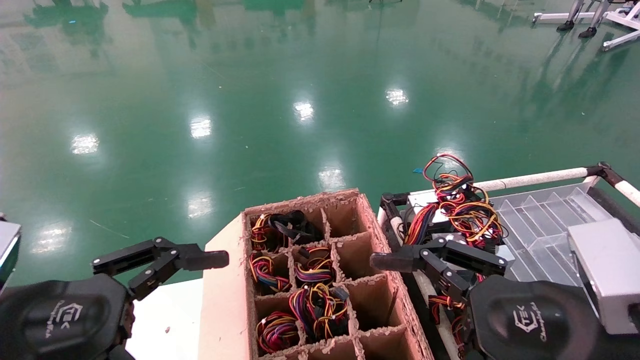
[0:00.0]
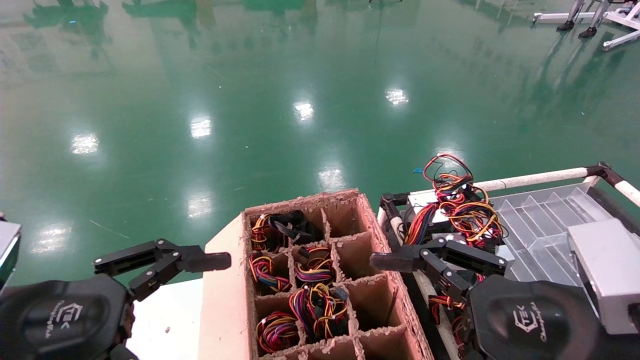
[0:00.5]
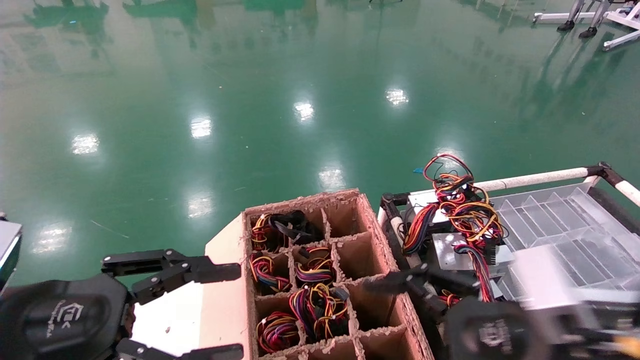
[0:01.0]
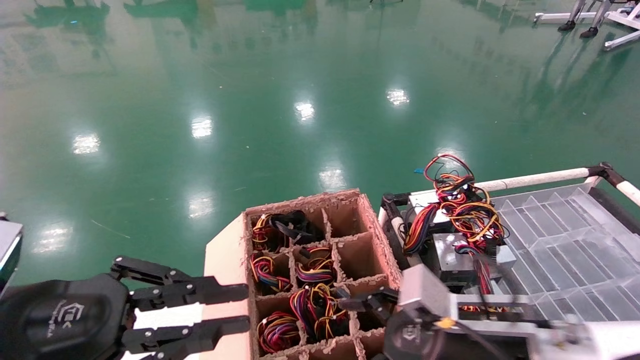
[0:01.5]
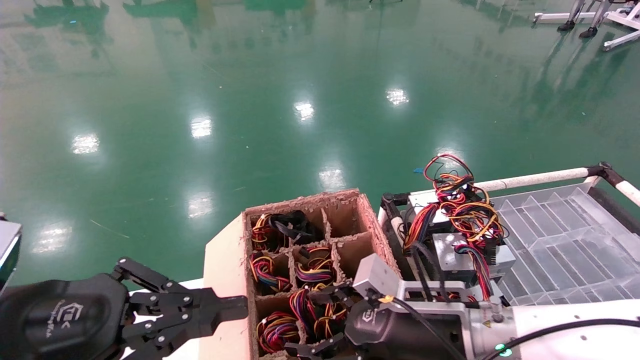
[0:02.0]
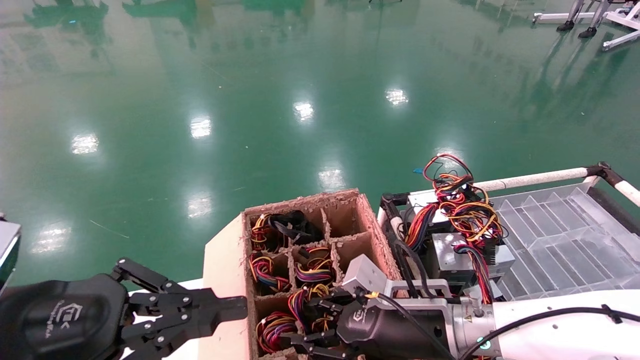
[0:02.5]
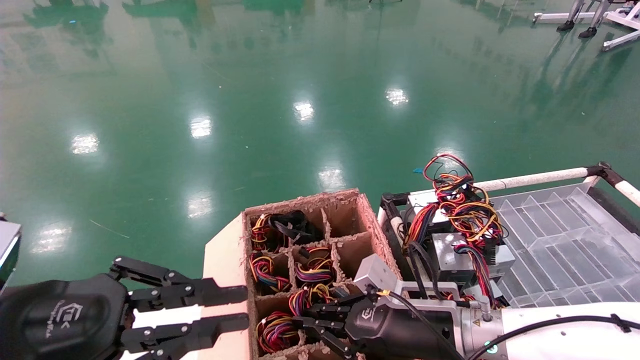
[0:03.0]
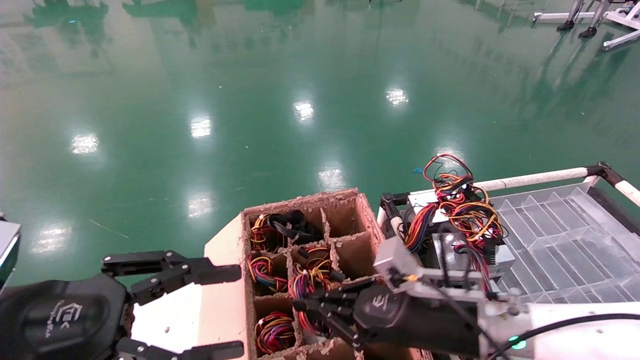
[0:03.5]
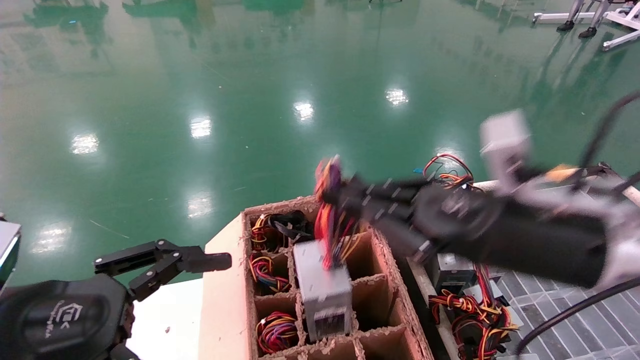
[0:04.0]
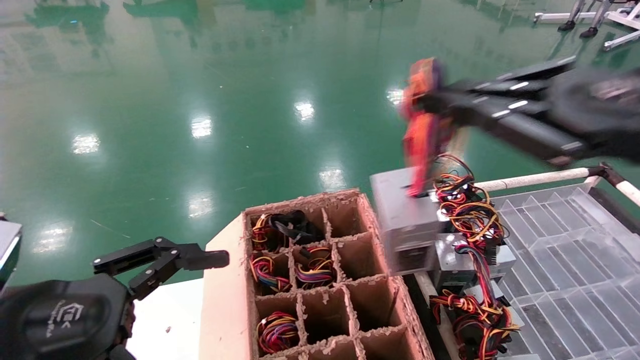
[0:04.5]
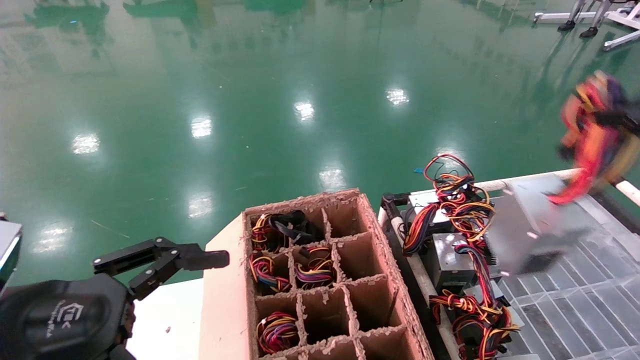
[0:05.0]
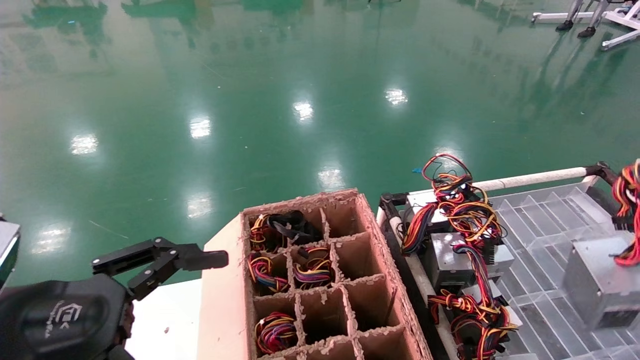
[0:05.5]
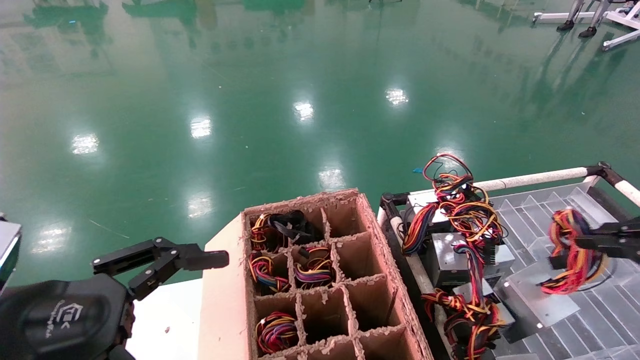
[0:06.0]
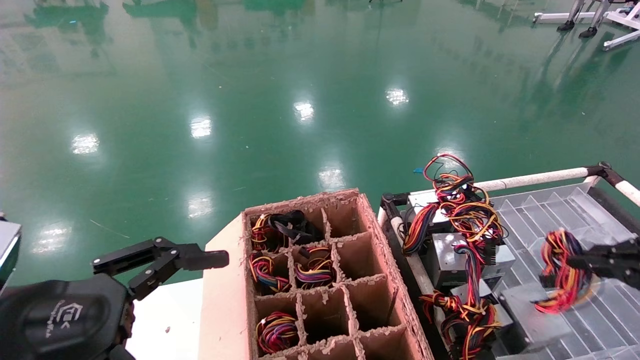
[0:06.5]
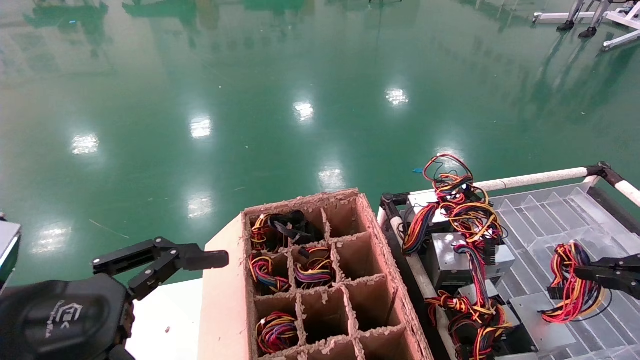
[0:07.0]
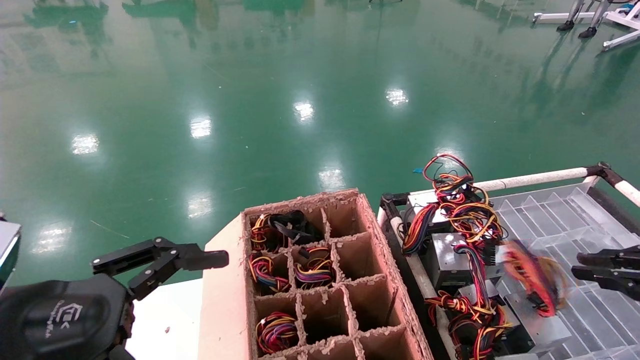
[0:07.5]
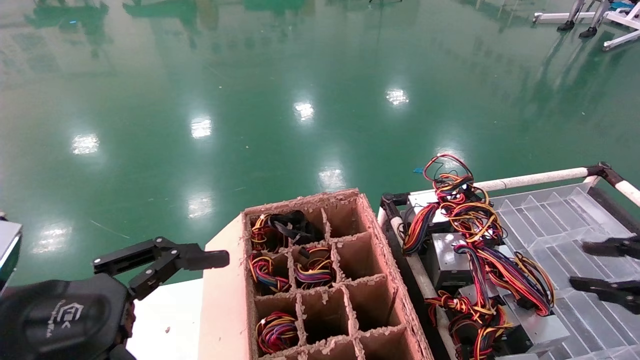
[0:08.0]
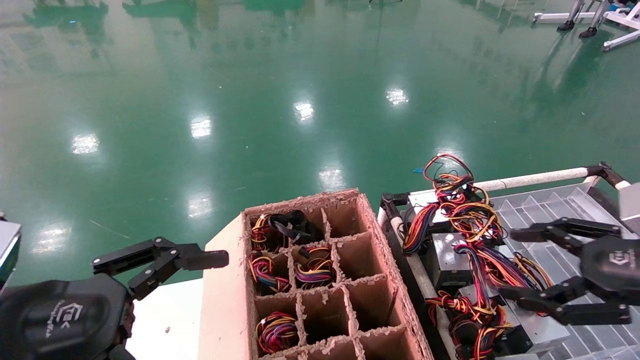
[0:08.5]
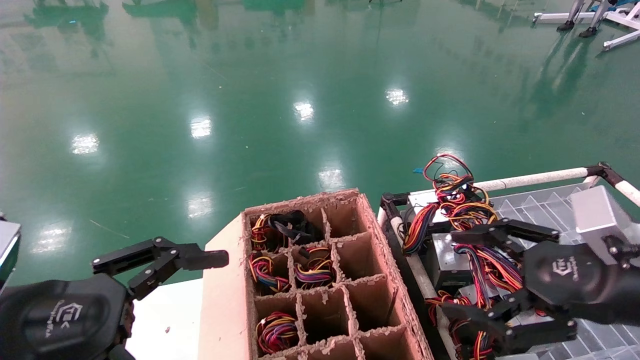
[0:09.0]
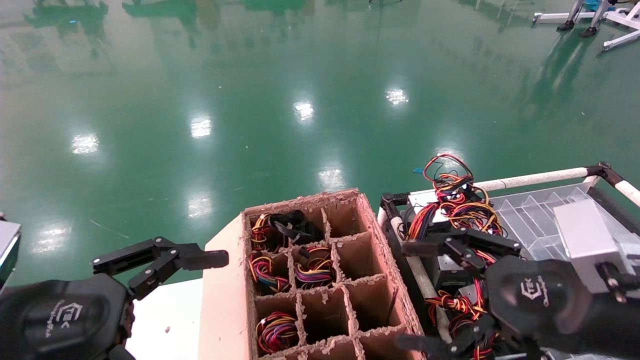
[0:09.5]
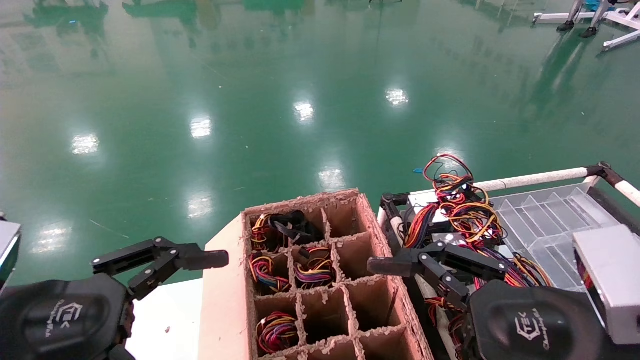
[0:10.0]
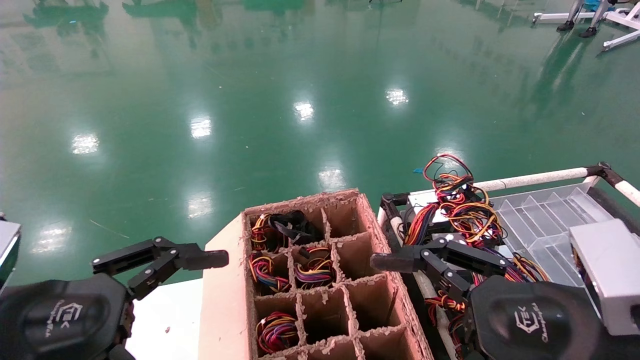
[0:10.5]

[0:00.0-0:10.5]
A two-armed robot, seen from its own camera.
Step, 0:01.0 to 0:03.0: Grab and lift the power supply from the large box.
Step, 0:03.5 to 0:07.5: Place the power supply on the operating table.
0:00.0 to 0:02.0: The right gripper travels forward, downward and to the left by some 20 cm. The left gripper closes up.
0:02.0 to 0:04.0: The left gripper opens up. The right gripper is displaced upward, backward and to the right by roughly 15 cm, and closes up.
0:04.0 to 0:06.5: The right gripper heads to the right, covering approximately 25 cm.
0:06.5 to 0:08.5: The right gripper travels to the left by some 5 cm, and opens up.
0:08.5 to 0:10.5: The right gripper heads to the left, covering approximately 15 cm.

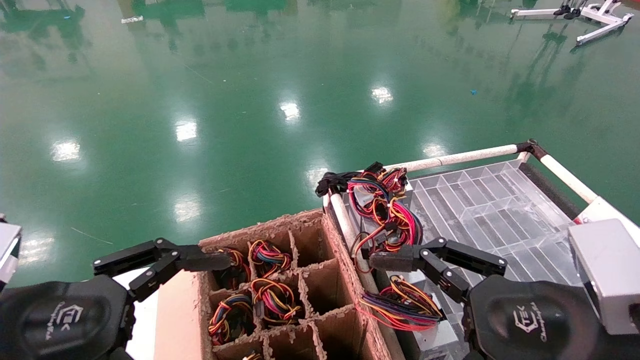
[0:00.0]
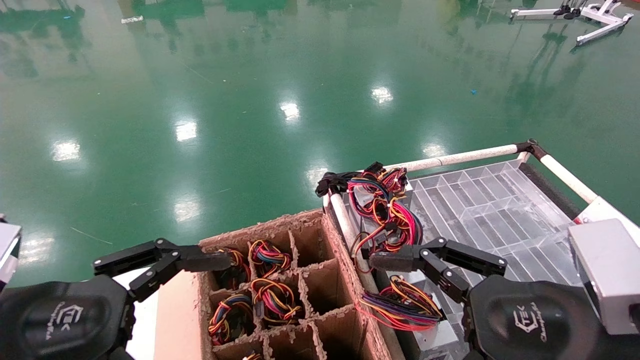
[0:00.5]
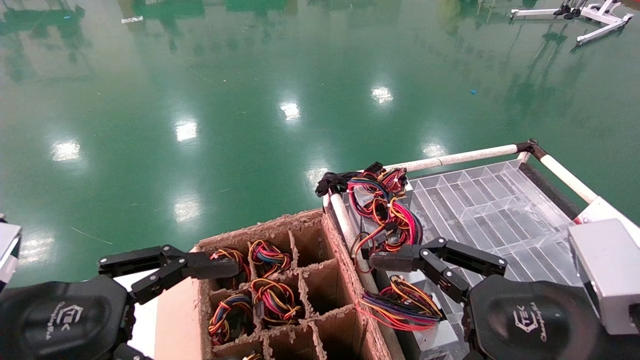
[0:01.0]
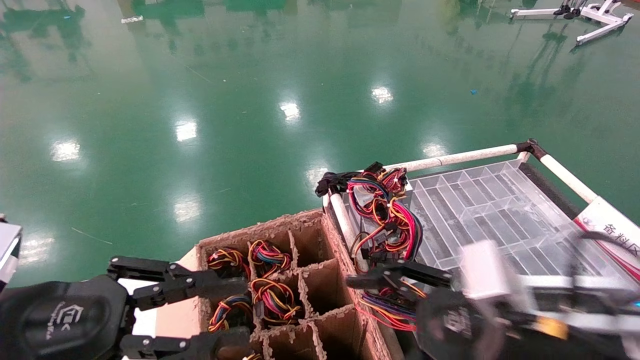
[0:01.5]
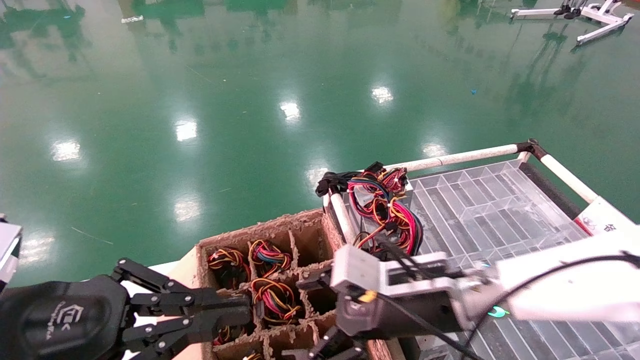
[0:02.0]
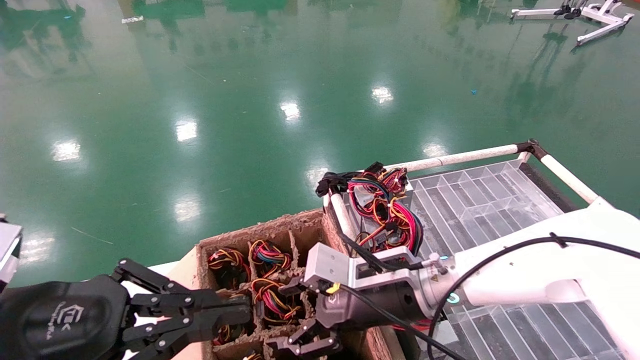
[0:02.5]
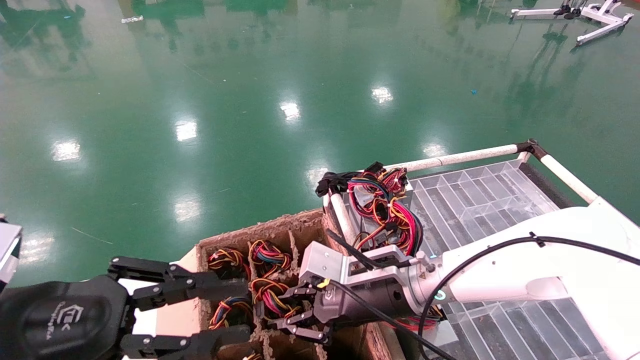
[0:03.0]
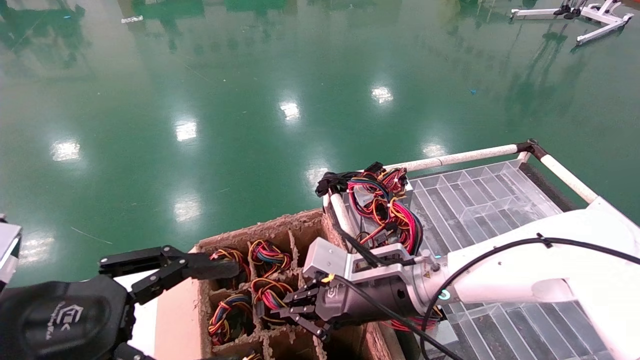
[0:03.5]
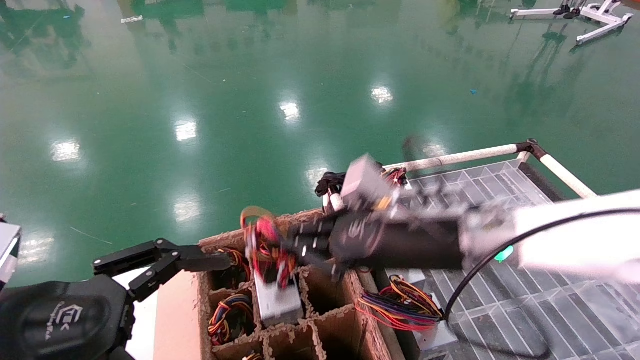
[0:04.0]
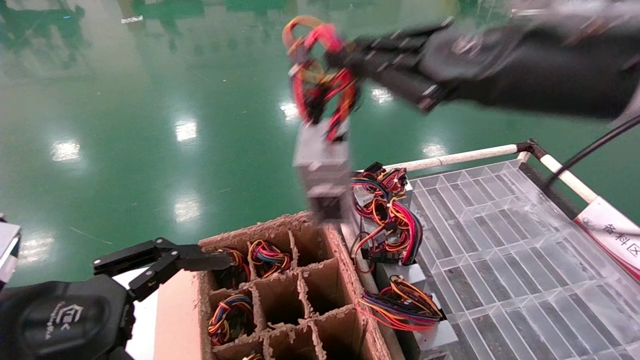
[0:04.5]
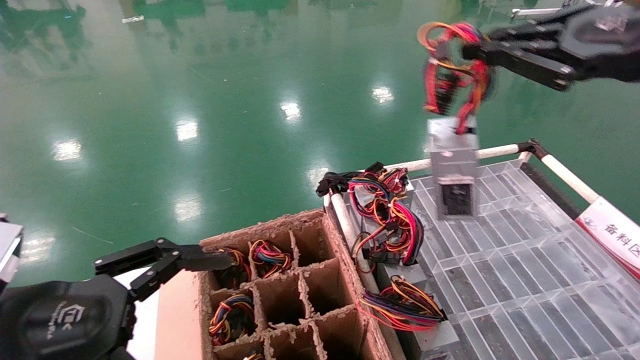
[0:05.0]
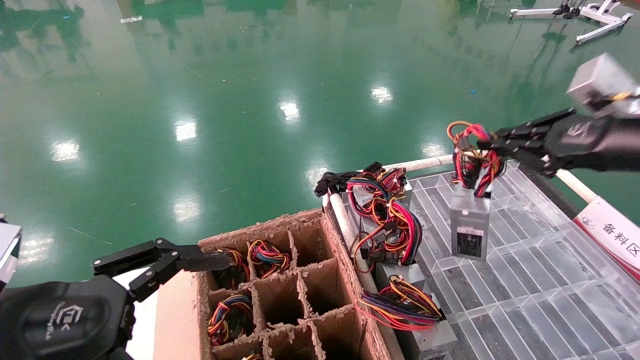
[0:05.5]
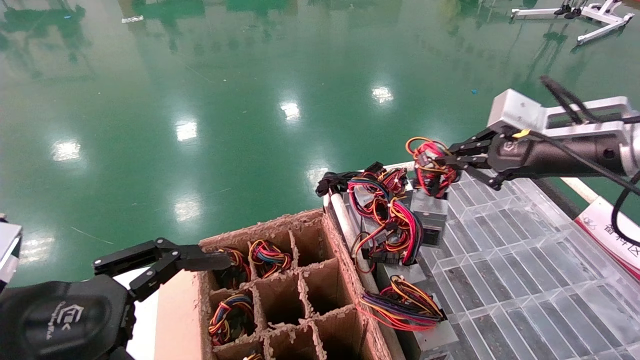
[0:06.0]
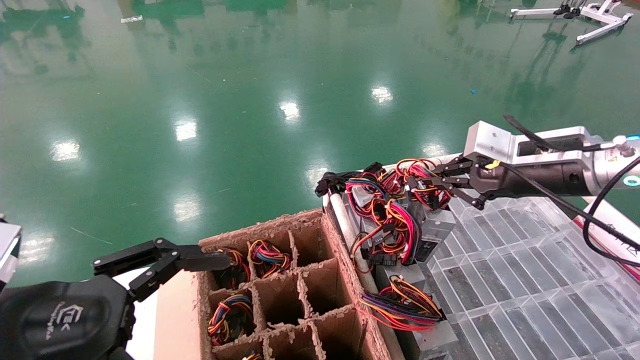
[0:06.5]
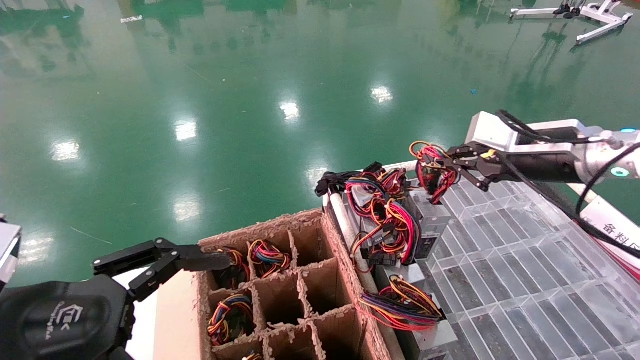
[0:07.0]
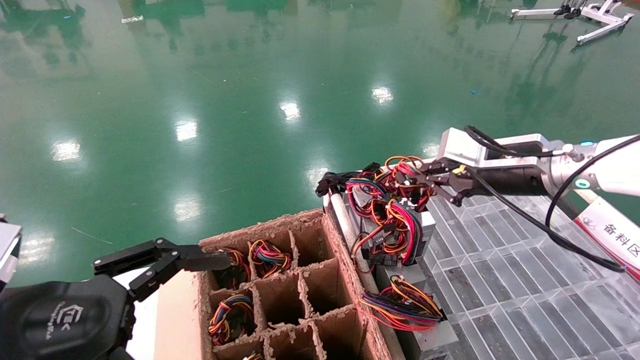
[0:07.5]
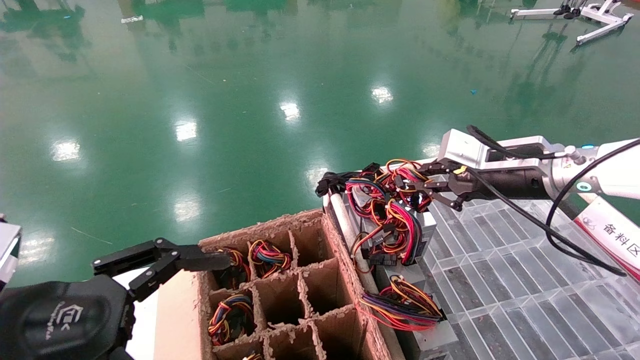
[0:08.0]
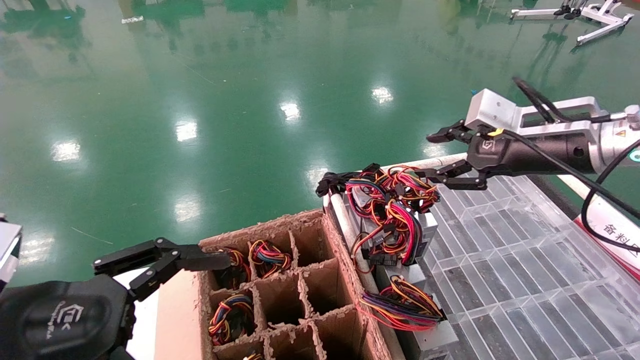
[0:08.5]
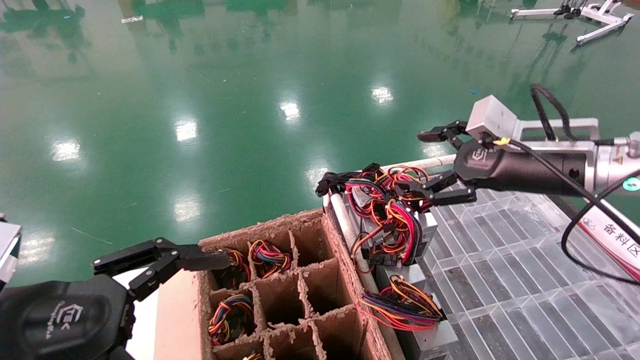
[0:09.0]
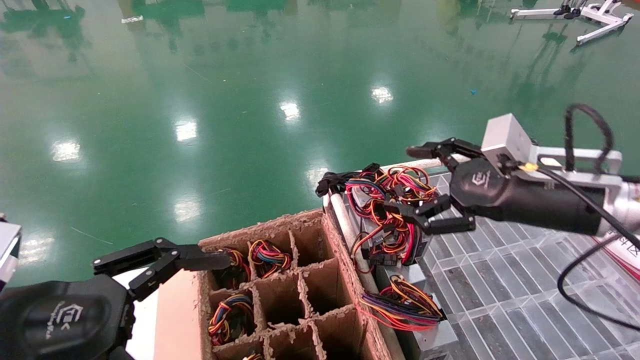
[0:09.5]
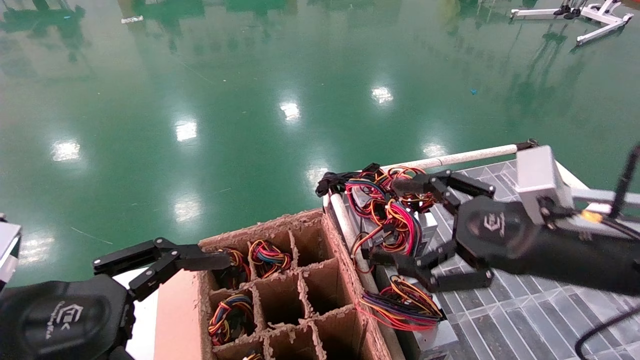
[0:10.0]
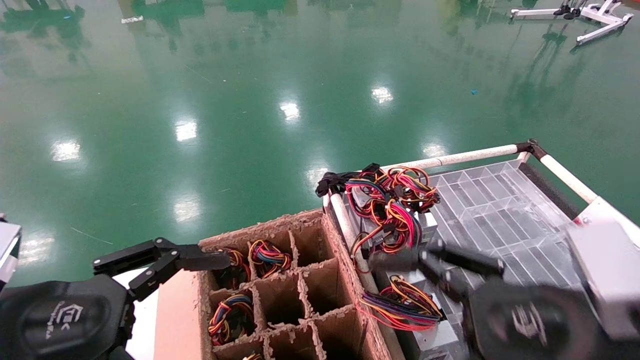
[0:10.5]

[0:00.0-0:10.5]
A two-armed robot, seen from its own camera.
Step, 0:01.0 to 0:03.0: Grab and lift the power supply from the large box.
Step, 0:03.5 to 0:08.0: Place the power supply on the operating table.
0:00.0 to 0:02.0: The right gripper heads forward and to the left, covering about 15 cm. Meanwhile the left gripper closes its fingers.
0:02.0 to 0:04.0: The right gripper goes about 10 cm upward, and closes its fingers. Meanwhile the left gripper opens.
0:04.0 to 0:06.5: The right gripper is displaced to the right by approximately 20 cm.
0:06.5 to 0:08.5: The right gripper opens its fingers.
0:08.5 to 0:10.5: The right gripper is displaced backward and downward by some 20 cm, and opens its fingers.
